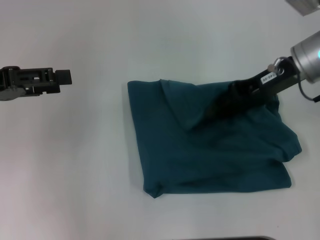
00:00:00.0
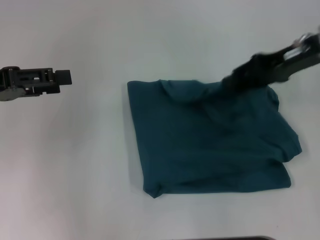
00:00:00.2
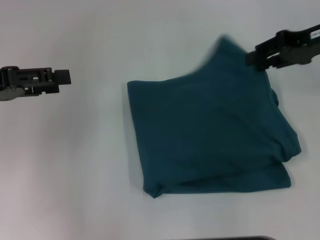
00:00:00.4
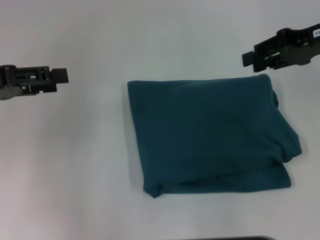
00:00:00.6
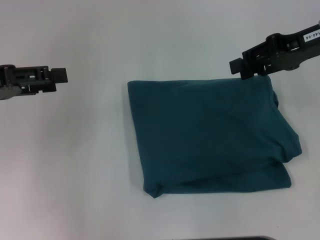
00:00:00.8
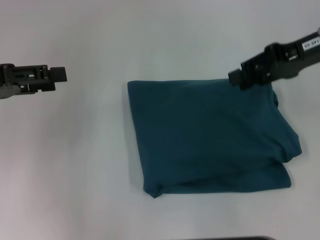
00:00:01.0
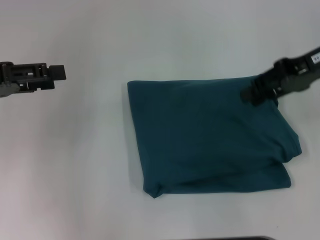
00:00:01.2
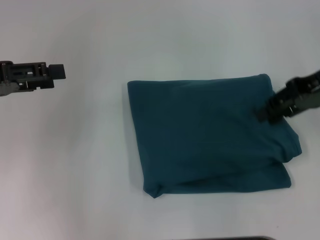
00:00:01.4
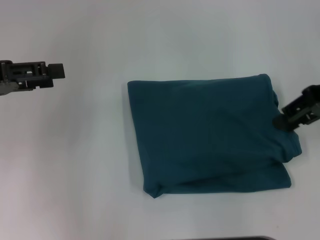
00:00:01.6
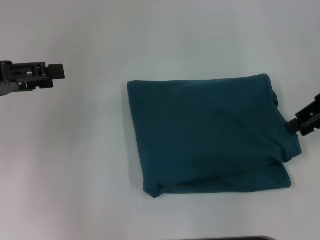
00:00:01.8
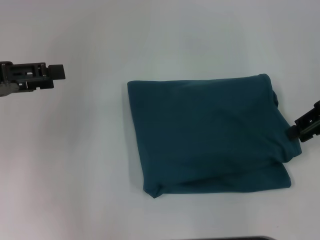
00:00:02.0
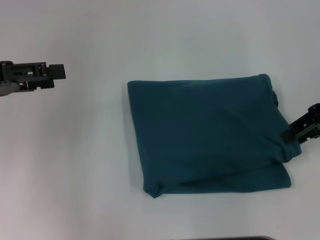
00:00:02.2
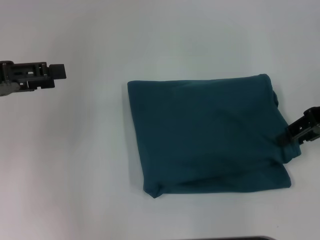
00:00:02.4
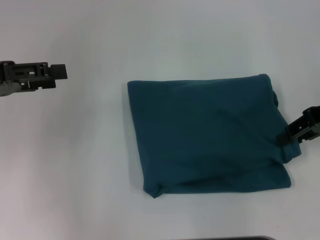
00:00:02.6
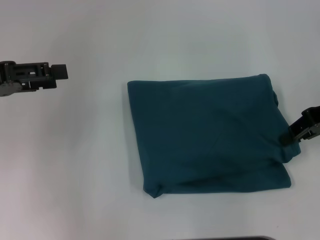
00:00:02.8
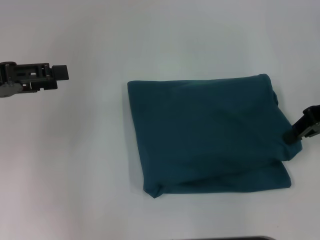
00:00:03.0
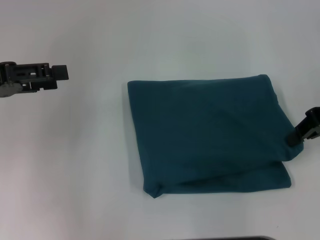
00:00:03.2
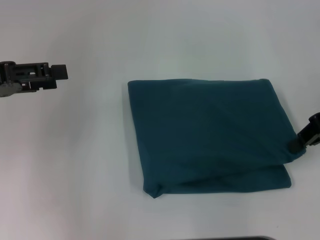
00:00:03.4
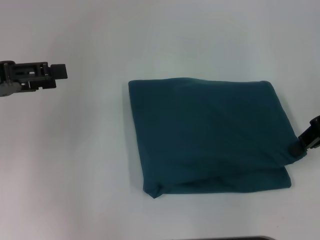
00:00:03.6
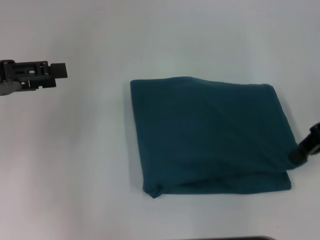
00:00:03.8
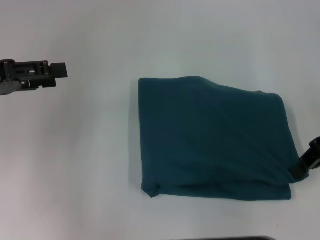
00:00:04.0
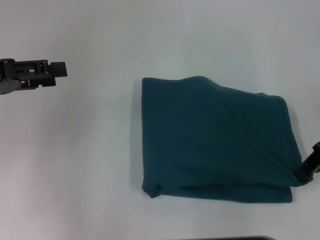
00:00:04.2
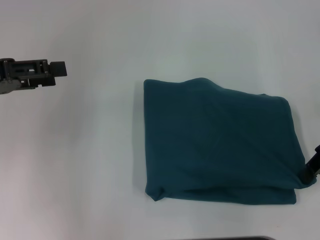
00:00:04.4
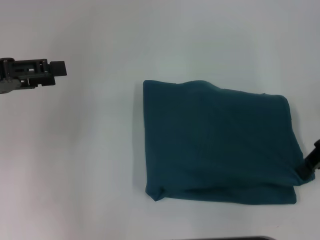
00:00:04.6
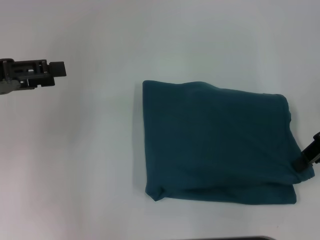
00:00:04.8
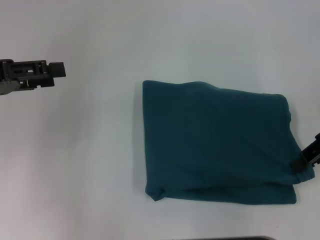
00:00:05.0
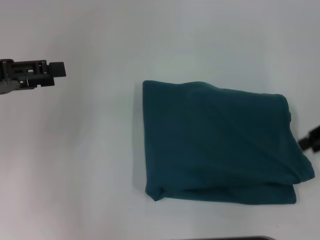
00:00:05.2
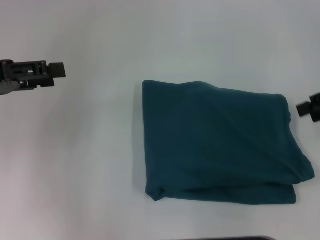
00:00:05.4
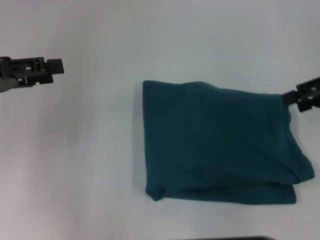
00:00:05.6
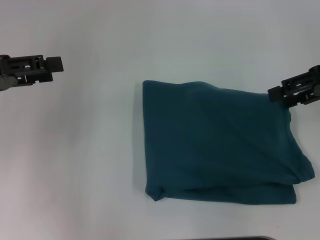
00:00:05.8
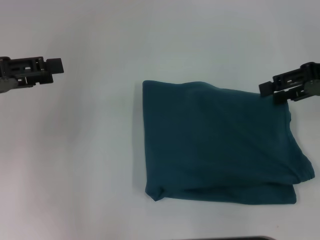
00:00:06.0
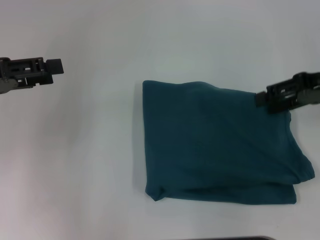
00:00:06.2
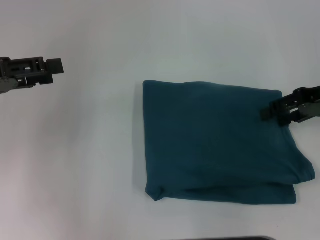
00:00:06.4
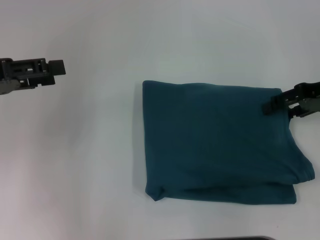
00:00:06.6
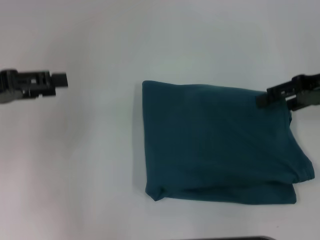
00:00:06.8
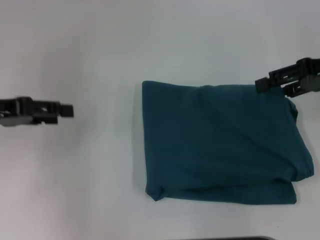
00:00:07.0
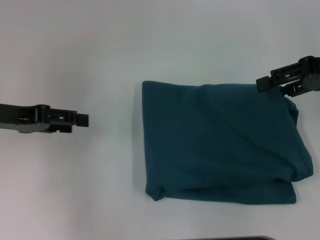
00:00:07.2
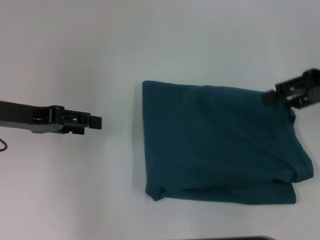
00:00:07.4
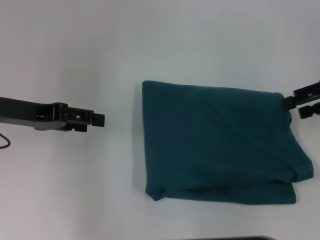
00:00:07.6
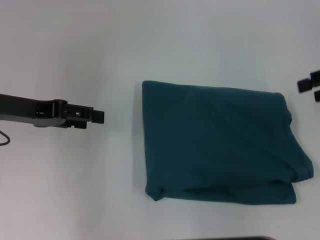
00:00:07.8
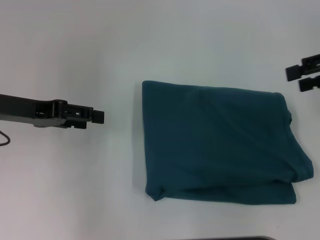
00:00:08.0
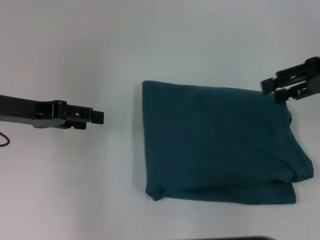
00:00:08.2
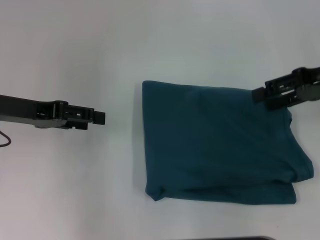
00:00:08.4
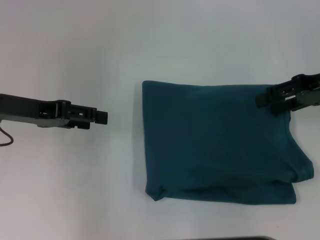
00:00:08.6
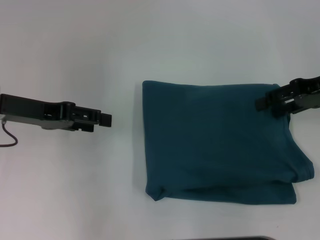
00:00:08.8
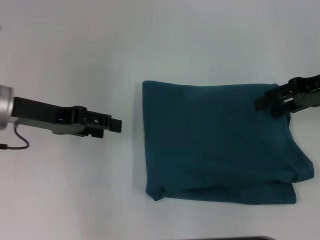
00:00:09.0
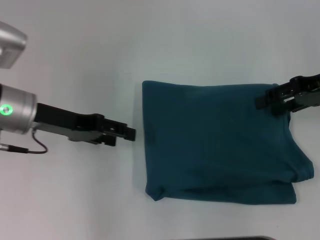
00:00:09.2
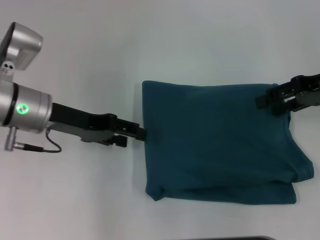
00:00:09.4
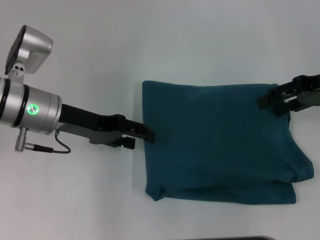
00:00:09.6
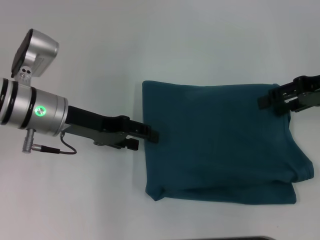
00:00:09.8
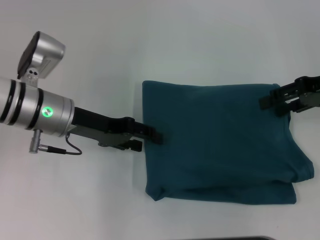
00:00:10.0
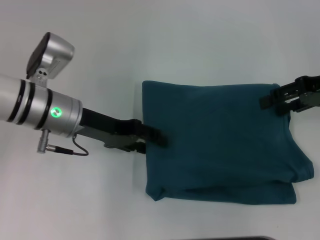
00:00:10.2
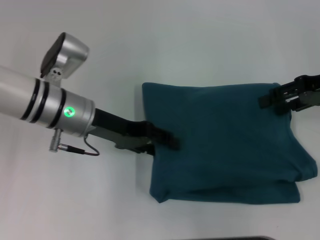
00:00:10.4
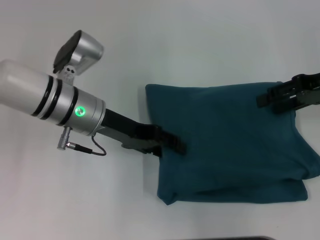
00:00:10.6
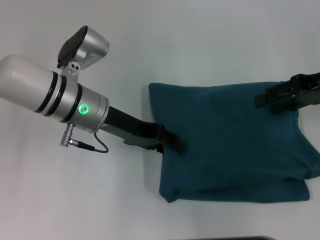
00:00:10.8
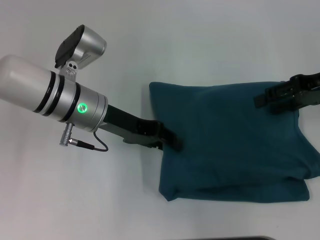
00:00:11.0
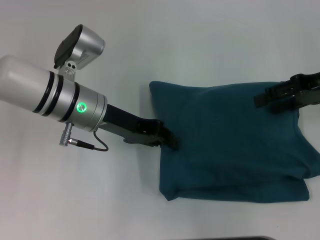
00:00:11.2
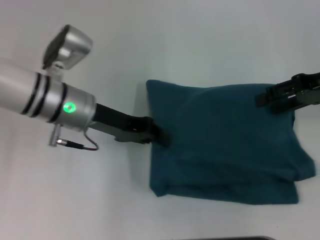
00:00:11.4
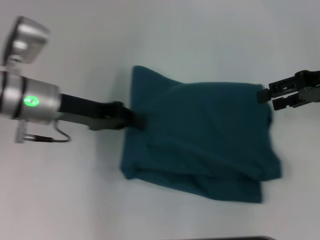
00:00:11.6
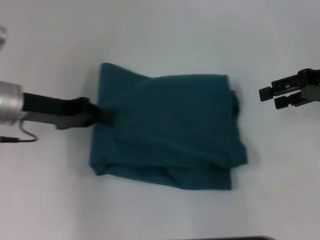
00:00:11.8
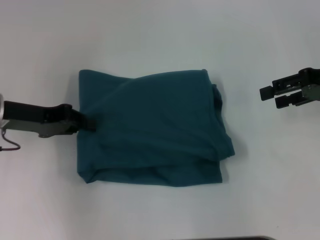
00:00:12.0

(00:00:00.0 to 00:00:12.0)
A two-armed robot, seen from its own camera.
00:00:00.0 - 00:00:01.6: The right gripper heads to the right, covering roughly 10 cm.
00:00:01.6 - 00:00:04.4: There are only small adjustments of the grippers.
00:00:04.4 - 00:00:06.0: The right gripper opens its fingers.
00:00:06.0 - 00:00:07.6: The left gripper travels to the right by about 5 cm.
00:00:07.6 - 00:00:09.0: The grippers stay close to where they were, moving slightly.
00:00:09.0 - 00:00:10.4: The left gripper heads to the right, covering some 10 cm.
00:00:10.4 - 00:00:12.0: The left gripper goes roughly 10 cm to the left, and closes its fingers.

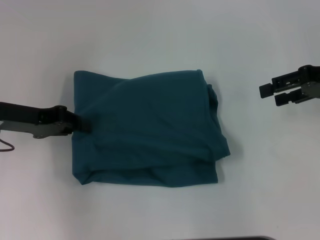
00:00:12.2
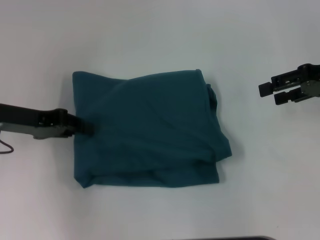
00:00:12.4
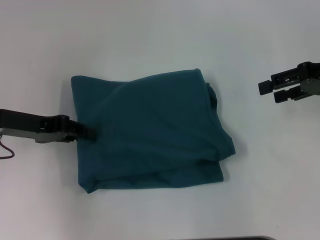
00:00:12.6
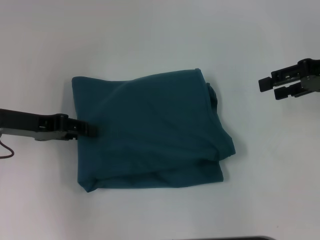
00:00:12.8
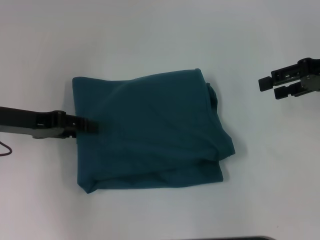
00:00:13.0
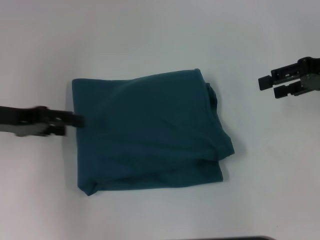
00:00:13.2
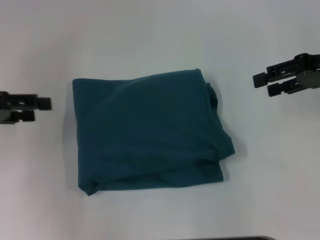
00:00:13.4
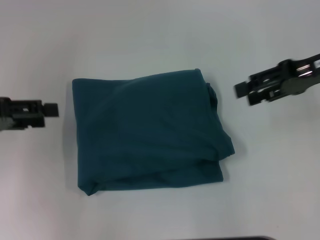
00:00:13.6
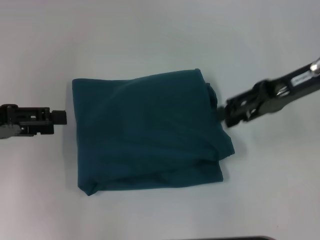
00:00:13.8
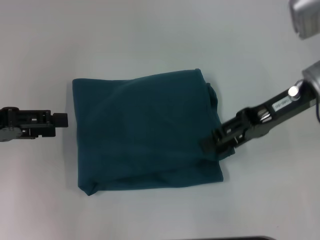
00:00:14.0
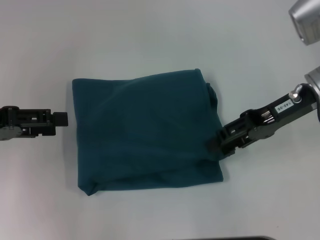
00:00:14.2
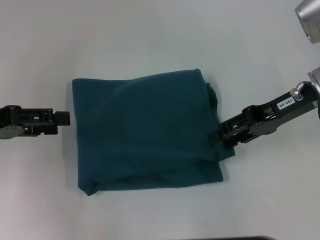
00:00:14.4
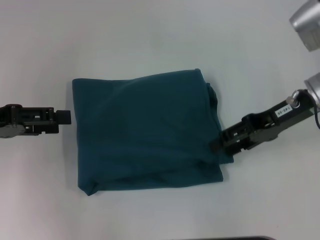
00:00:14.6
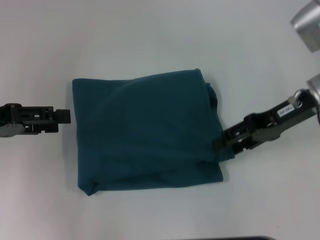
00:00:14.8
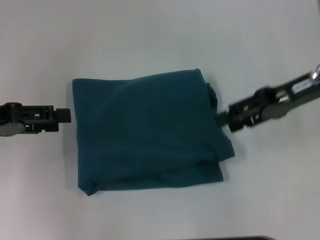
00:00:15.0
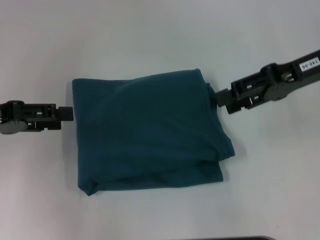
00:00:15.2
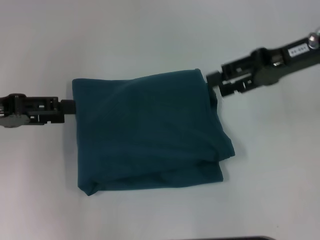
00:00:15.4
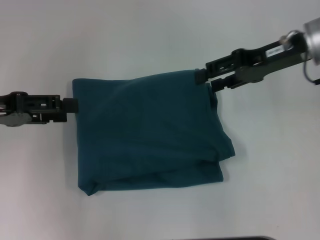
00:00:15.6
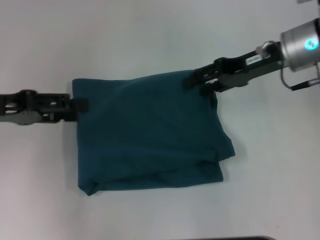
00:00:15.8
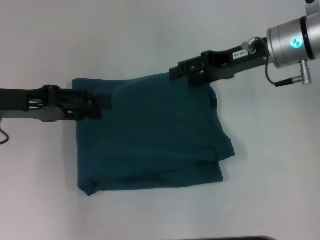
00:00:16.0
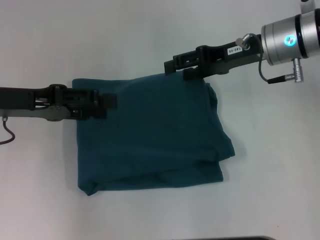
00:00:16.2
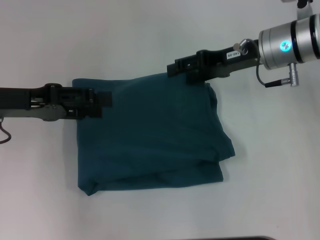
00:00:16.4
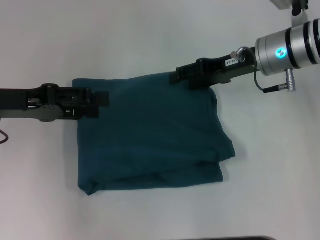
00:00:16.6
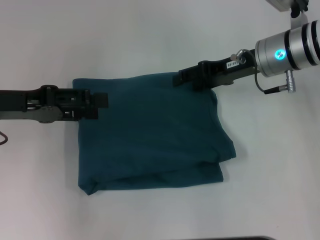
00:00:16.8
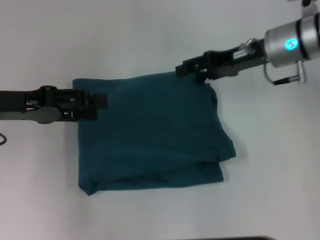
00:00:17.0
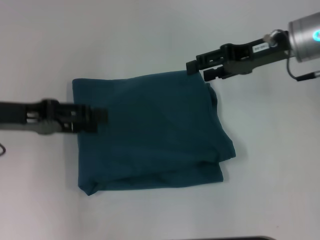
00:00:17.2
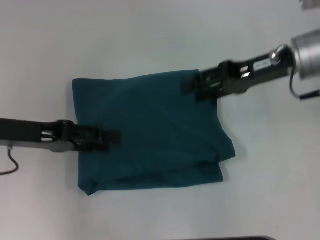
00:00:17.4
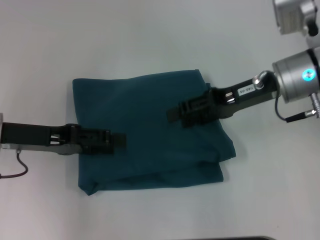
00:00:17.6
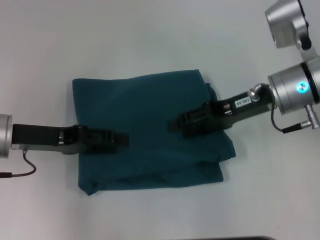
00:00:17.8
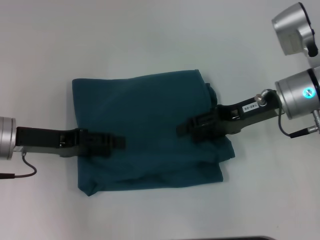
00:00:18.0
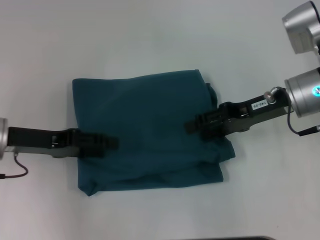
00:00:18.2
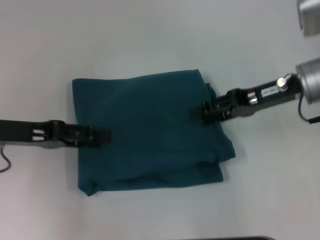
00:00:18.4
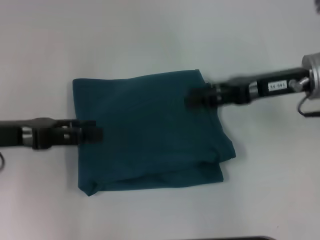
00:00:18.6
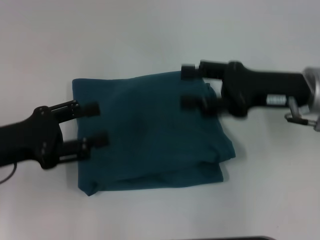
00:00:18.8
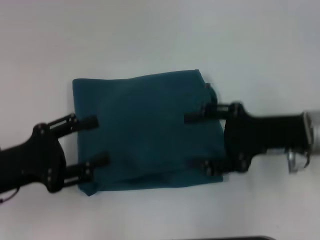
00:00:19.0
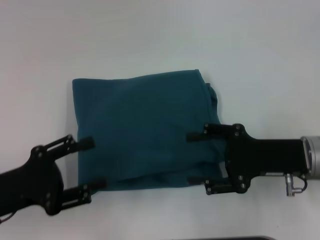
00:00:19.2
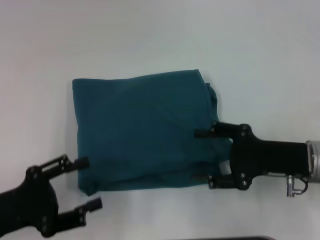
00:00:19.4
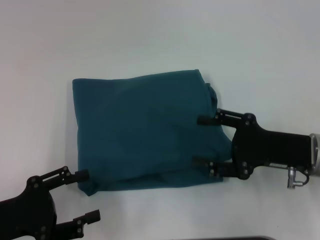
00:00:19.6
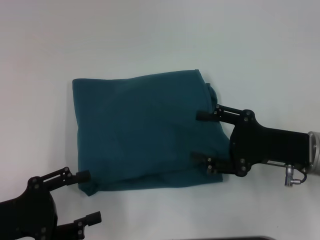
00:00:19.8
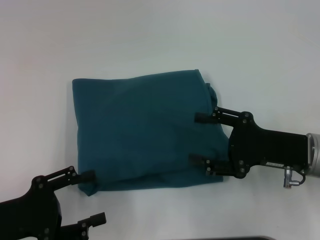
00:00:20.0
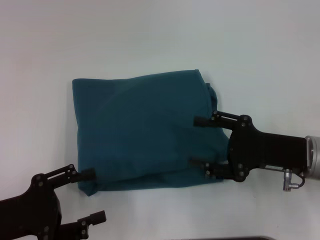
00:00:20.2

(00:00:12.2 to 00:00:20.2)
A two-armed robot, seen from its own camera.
00:00:12.2 - 00:00:13.8: The right gripper is displaced to the left by roughly 10 cm. The left gripper moves roughly 10 cm, and opens its fingers.
00:00:13.8 - 00:00:15.4: The grippers stay close to where they were, moving slightly.
00:00:15.4 - 00:00:17.0: The right gripper heads downward, covering approximately 5 cm.
00:00:17.0 - 00:00:18.6: The right gripper moves backward, some 5 cm.
00:00:18.6 - 00:00:20.2: Both grippers move backward and downward, about 15 cm.

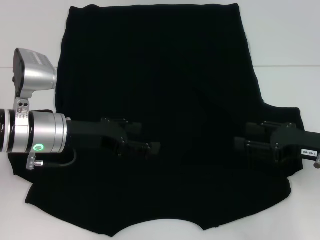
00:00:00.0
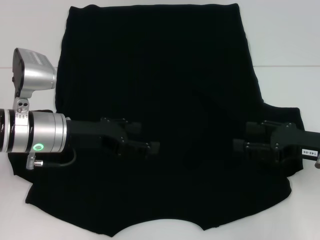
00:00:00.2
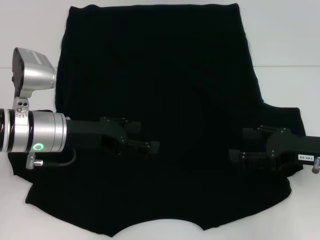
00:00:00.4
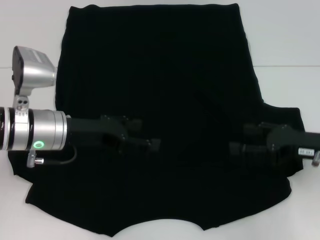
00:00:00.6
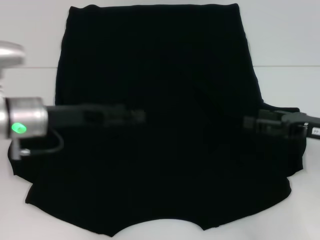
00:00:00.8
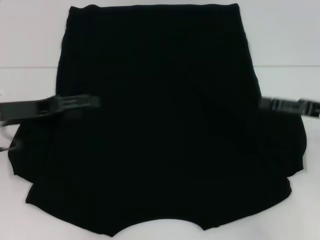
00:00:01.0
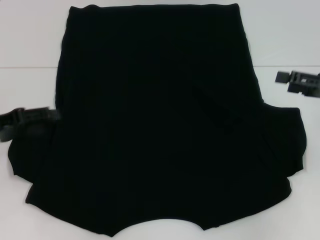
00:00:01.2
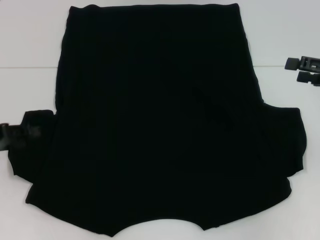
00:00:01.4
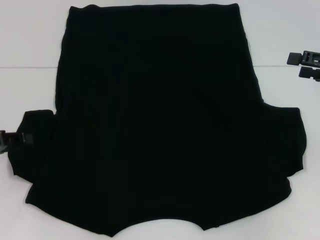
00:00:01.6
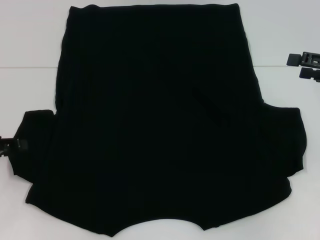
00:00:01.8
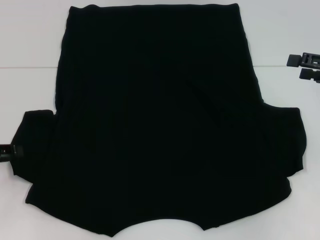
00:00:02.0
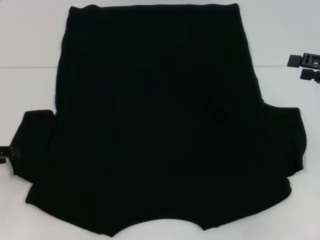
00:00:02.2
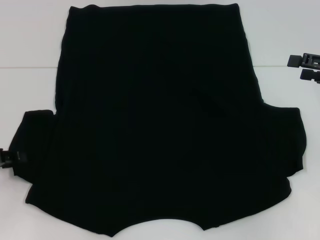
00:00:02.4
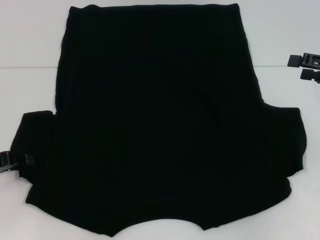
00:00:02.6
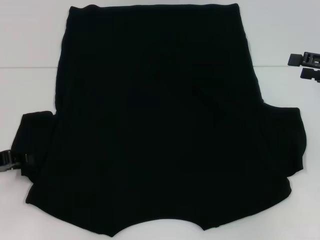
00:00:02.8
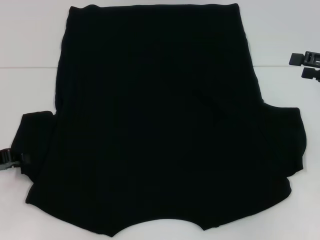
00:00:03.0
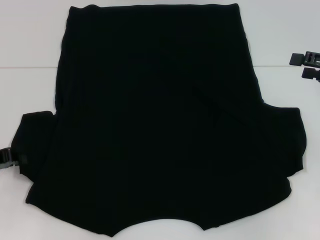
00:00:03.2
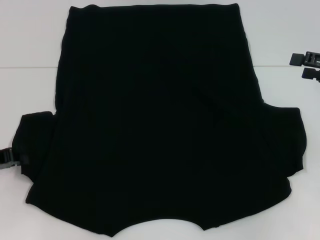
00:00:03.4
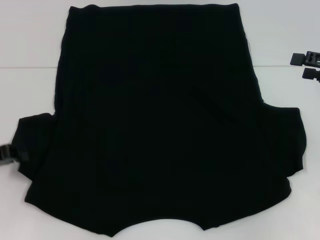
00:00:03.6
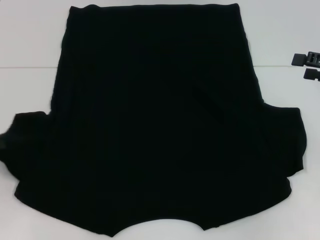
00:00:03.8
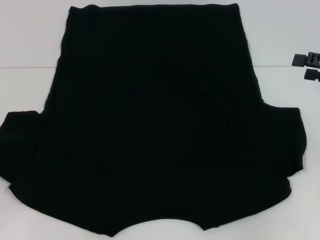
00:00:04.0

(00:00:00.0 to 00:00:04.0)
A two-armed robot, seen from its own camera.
00:00:00.0 - 00:00:01.4: The right gripper travels upward, to the right and forward by approximately 10 cm. The left gripper shifts approximately 15 cm to the left.
00:00:01.4 - 00:00:02.6: The left gripper closes.
00:00:02.6 - 00:00:04.0: The left gripper closes its fingers.
